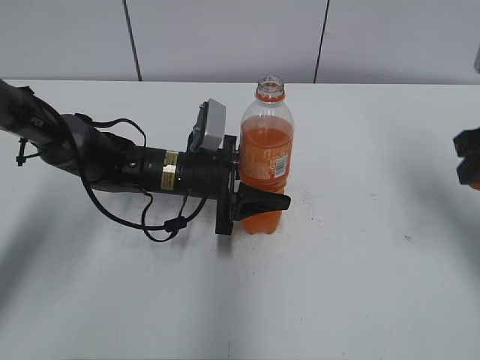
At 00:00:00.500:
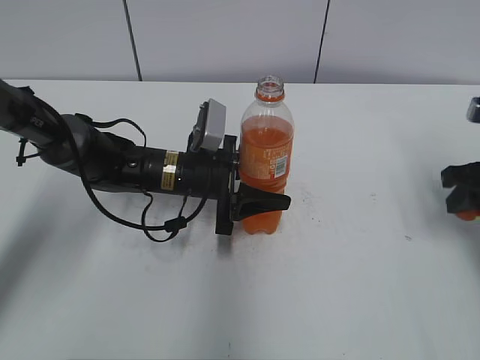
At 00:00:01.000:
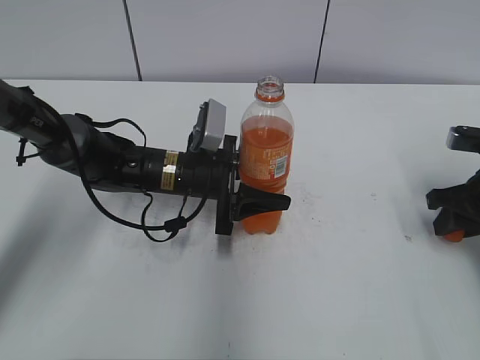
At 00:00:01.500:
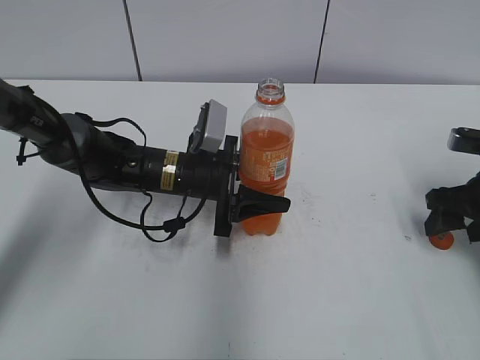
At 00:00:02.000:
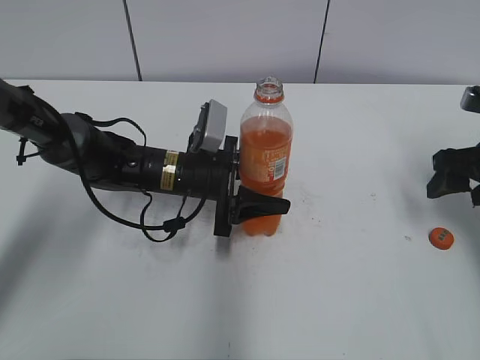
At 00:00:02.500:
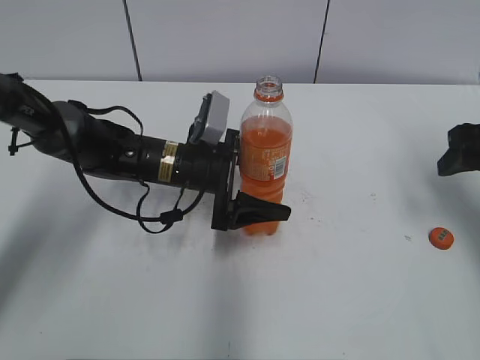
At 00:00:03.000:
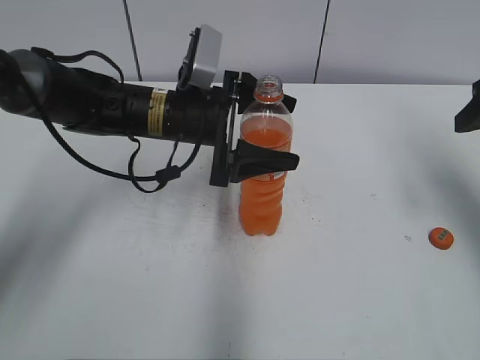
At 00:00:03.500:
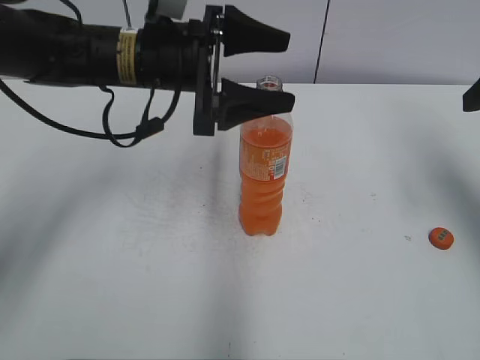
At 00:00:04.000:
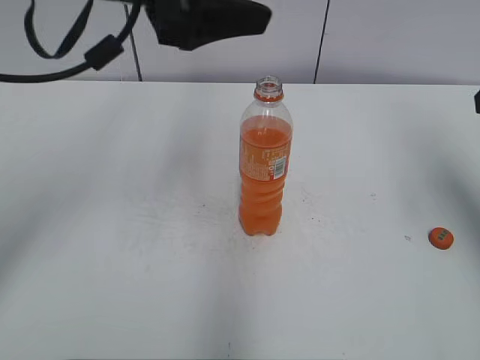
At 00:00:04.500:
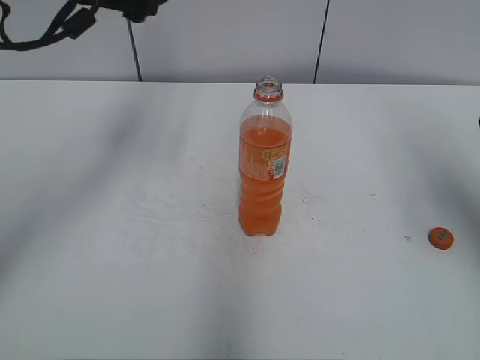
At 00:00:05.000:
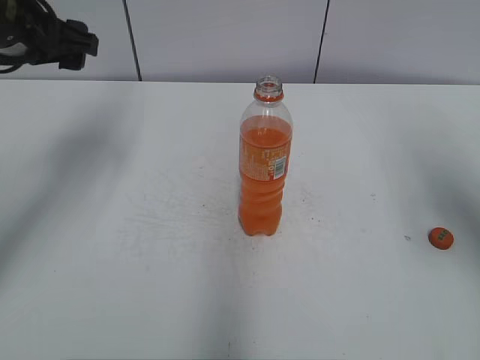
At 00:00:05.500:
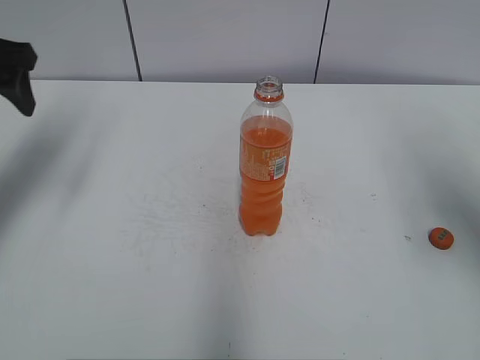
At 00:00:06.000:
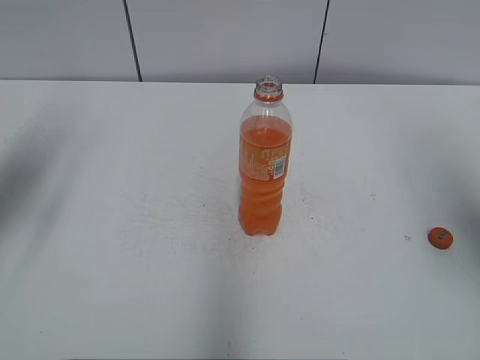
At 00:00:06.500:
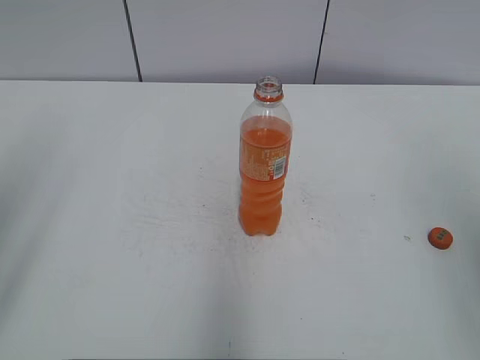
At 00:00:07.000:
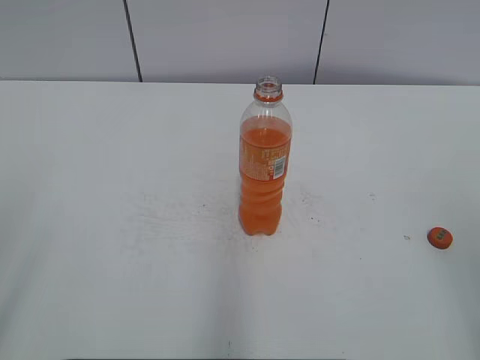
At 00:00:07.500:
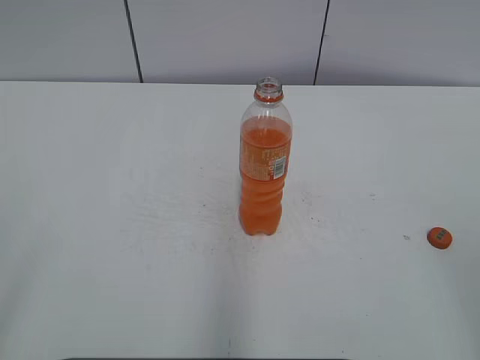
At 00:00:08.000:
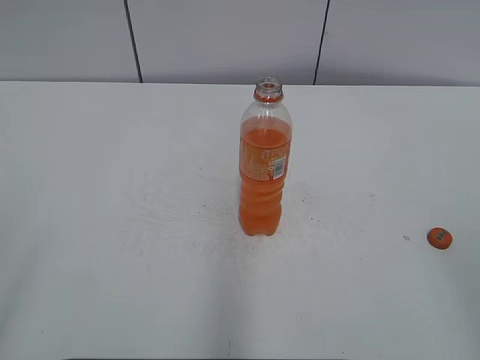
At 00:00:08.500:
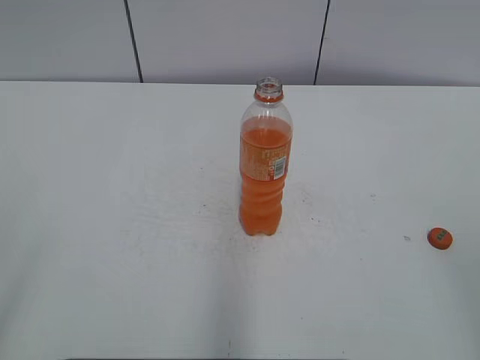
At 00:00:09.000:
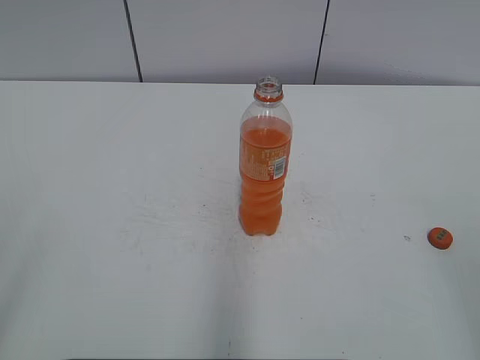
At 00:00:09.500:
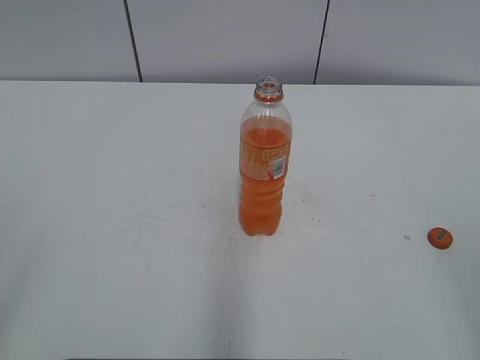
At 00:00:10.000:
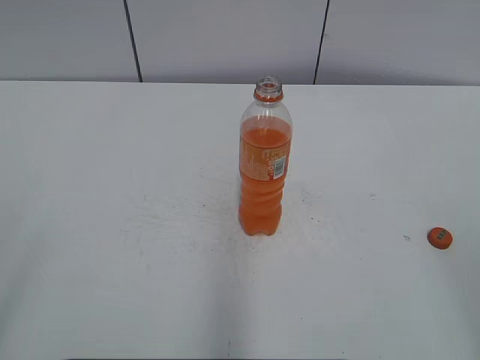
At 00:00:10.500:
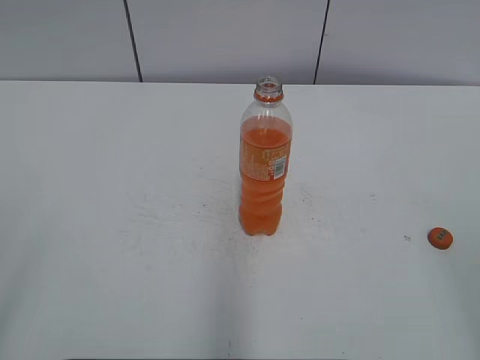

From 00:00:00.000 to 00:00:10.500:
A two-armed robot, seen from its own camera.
From 00:00:00.000 to 00:00:02.000: The right gripper goes some 10 cm downward, and opens up.
From 00:00:02.000 to 00:00:04.000: The left gripper goes roughly 25 cm upward, and opens up, while the right gripper is displaced upward by about 15 cm.
From 00:00:04.000 to 00:00:06.500: The right gripper heads backward, covering about 15 cm, while the left gripper heads to the left and backward, covering about 25 cm.
From 00:00:08.500 to 00:00:10.500: Both grippers stay put.
